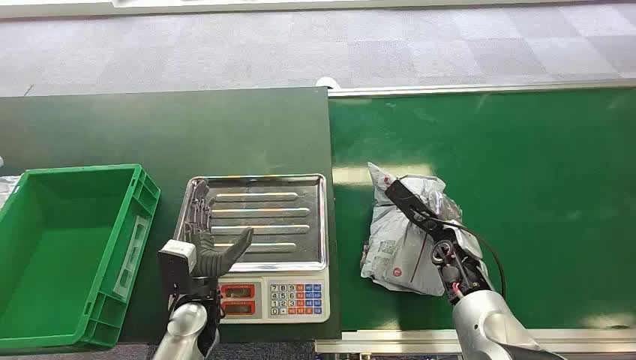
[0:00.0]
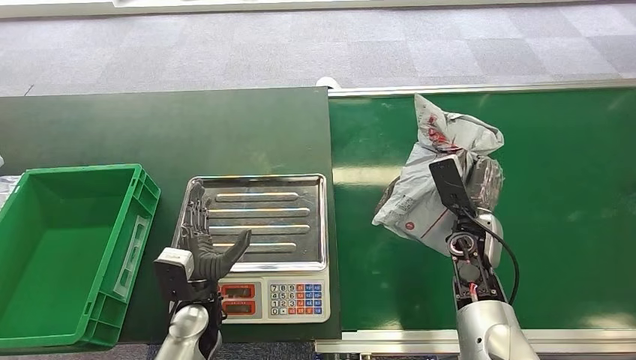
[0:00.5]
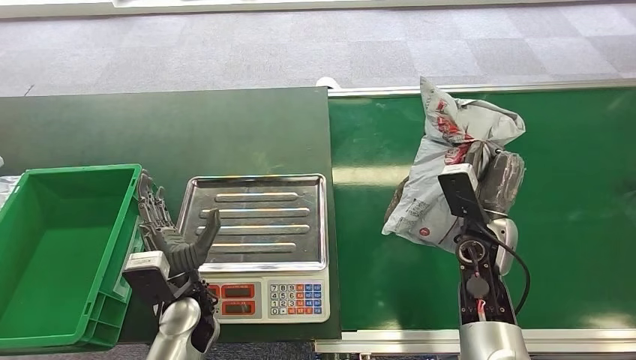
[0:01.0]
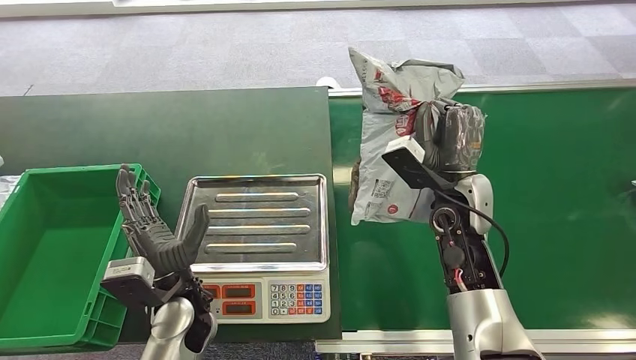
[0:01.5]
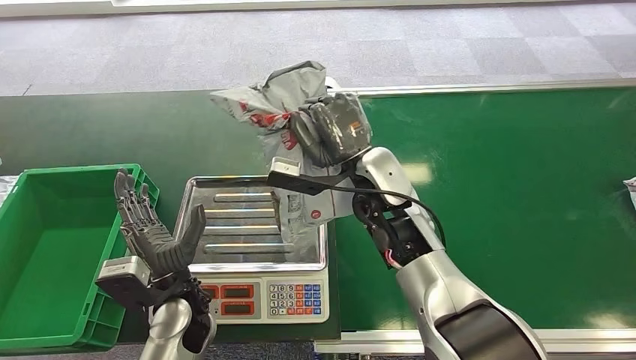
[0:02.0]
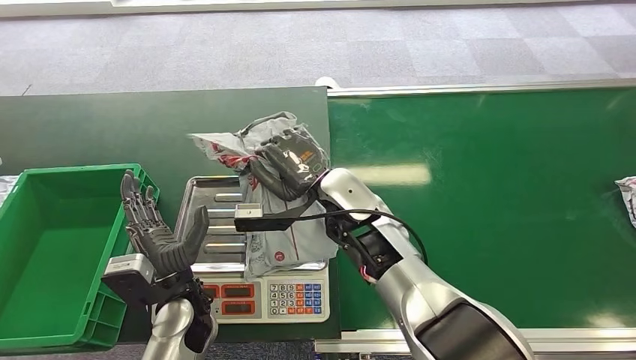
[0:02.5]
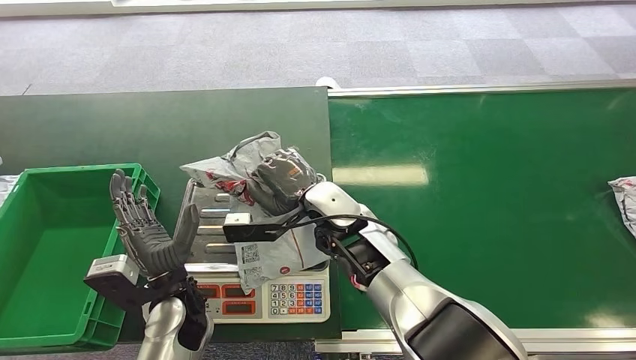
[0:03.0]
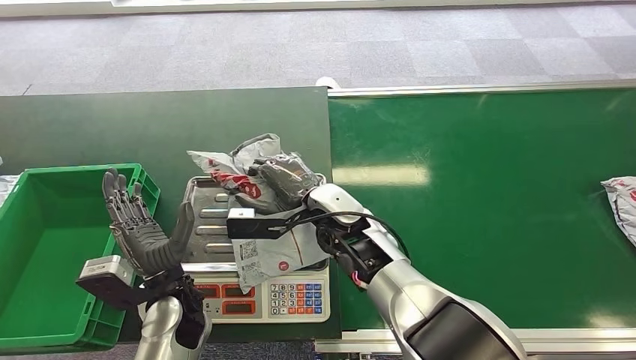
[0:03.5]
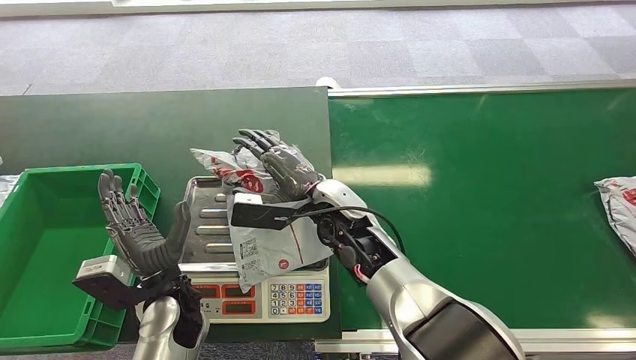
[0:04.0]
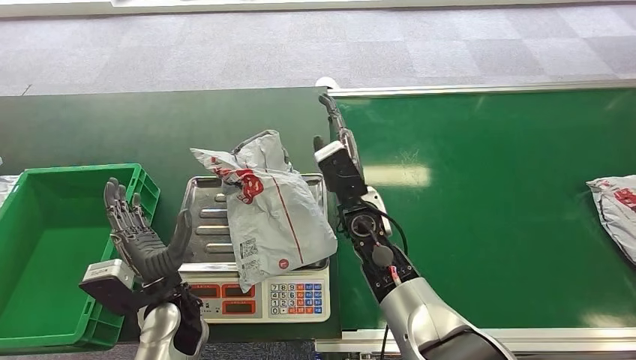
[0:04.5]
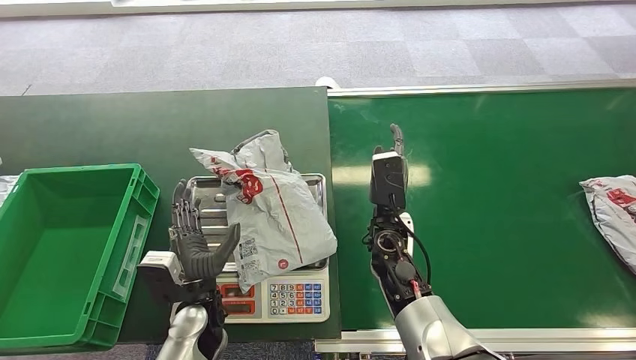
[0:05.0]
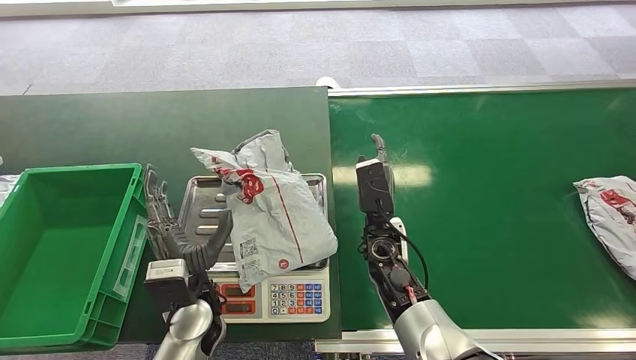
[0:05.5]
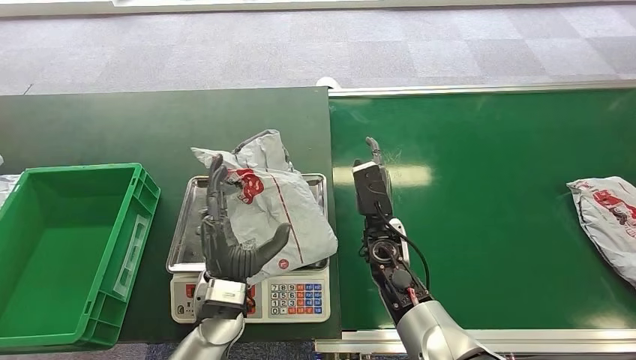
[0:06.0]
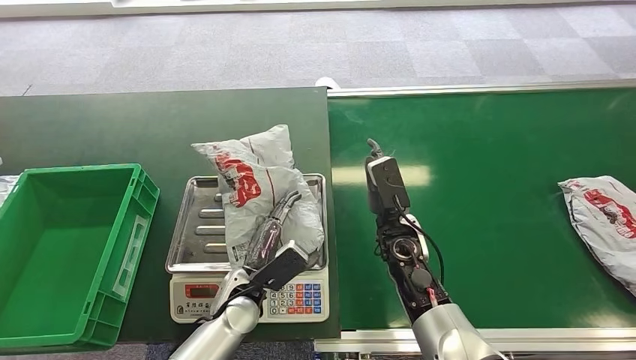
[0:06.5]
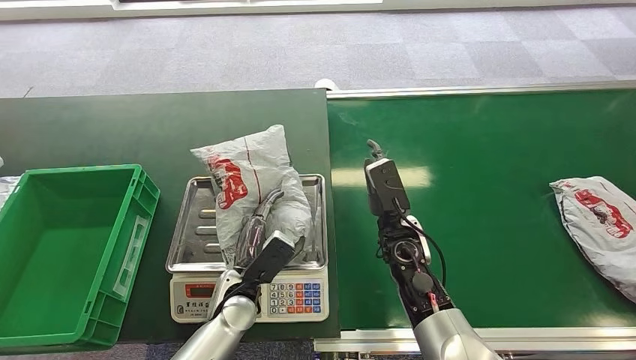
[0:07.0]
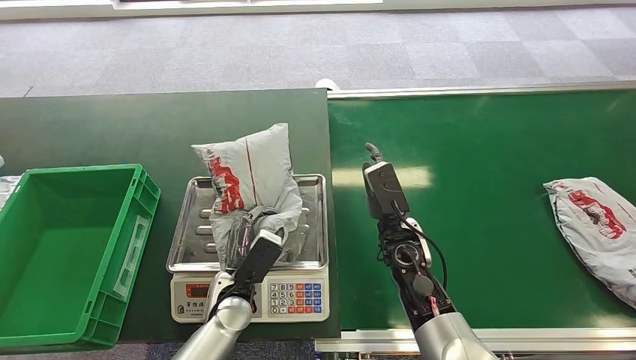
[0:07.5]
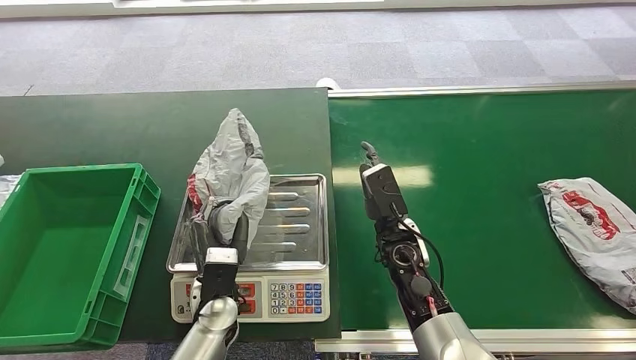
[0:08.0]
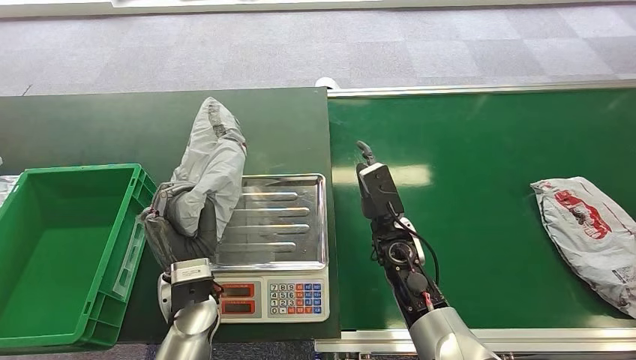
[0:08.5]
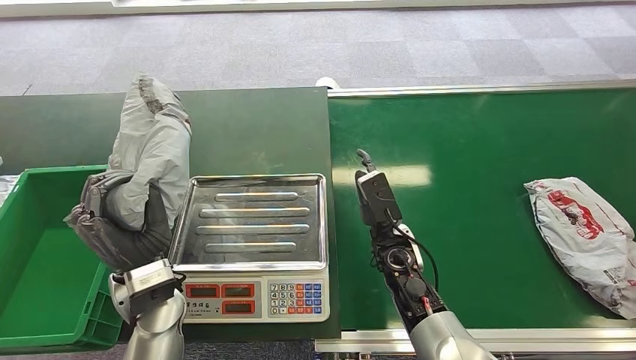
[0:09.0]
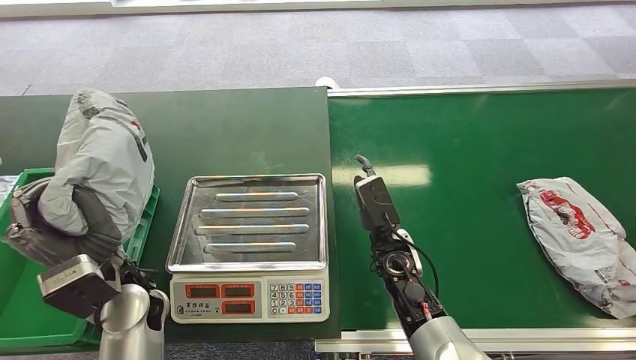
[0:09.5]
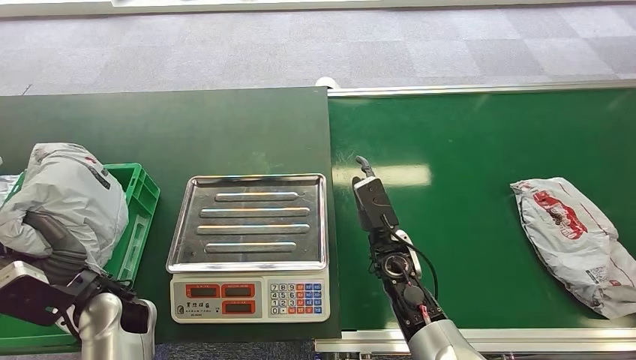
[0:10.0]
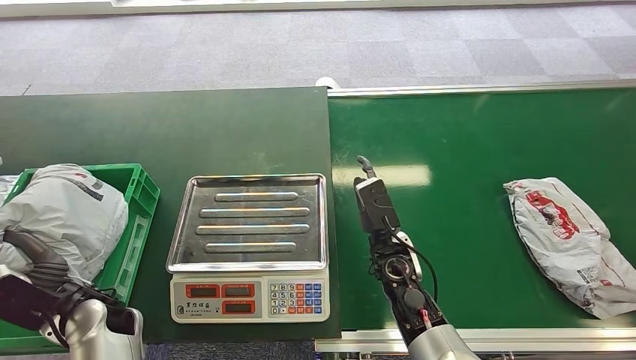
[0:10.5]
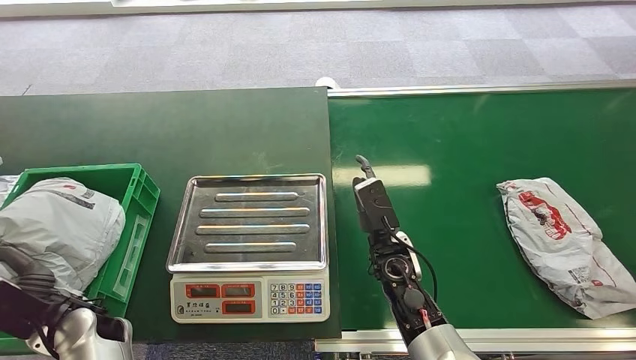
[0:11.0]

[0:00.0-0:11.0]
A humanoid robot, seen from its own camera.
Step, 0:00.0 to 0:01.5: Pick up the package from the conveyor belt.
Step, 0:02.5 to 0:04.0: Place the package onto the inbound machine.
Step, 0:08.5 to 0:09.5: Pick up the package from the inbound machine.
Step, 0:10.0 to 0:11.0: Place the package into the parcel locker.
0:03.5 to 0:05.5: The right hand goes some 10 cm to the right and downward.

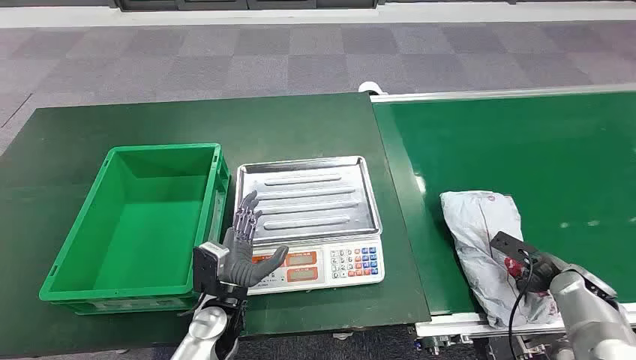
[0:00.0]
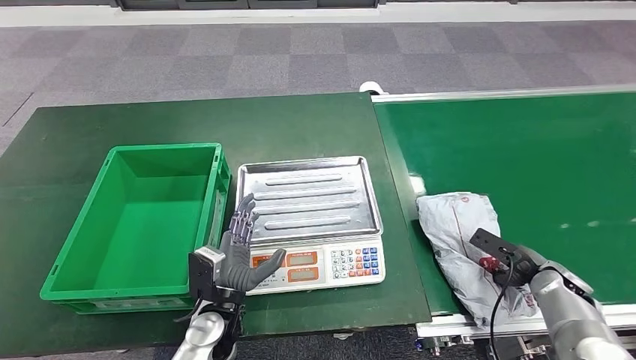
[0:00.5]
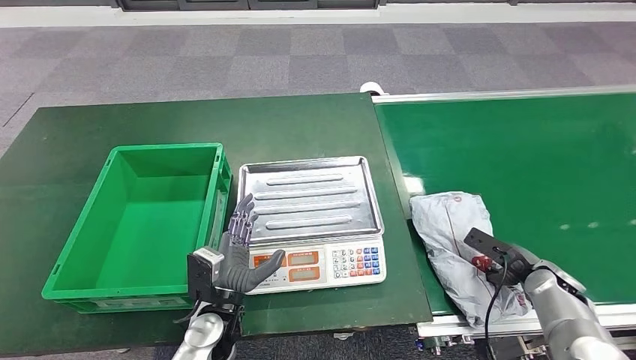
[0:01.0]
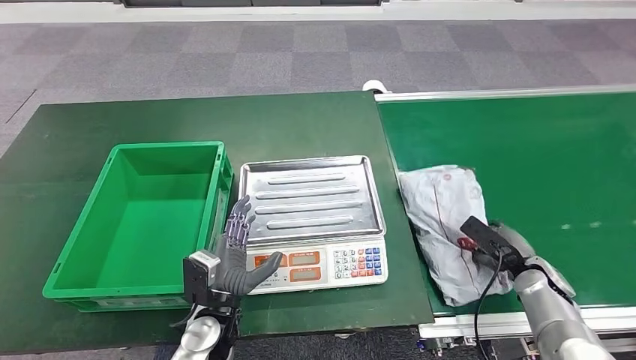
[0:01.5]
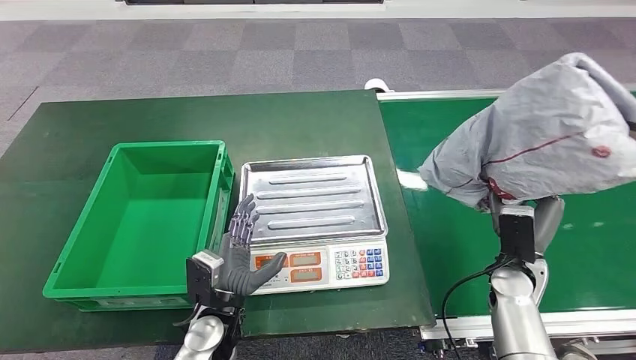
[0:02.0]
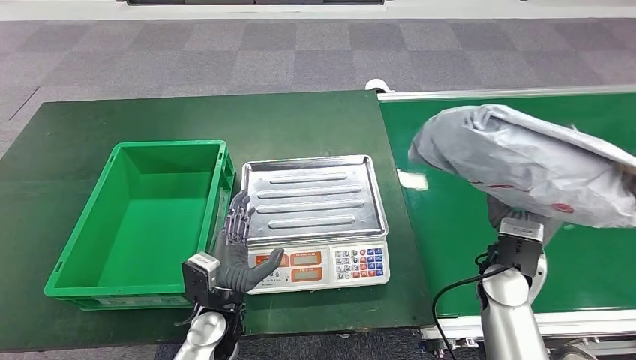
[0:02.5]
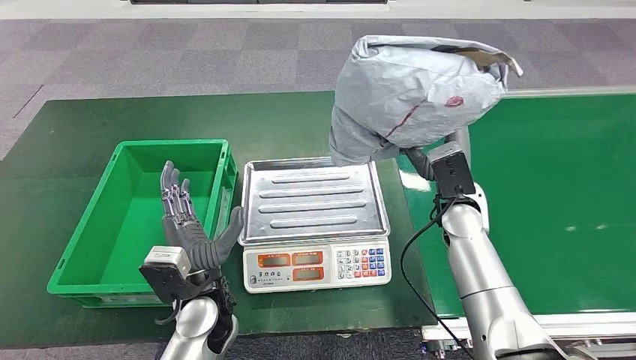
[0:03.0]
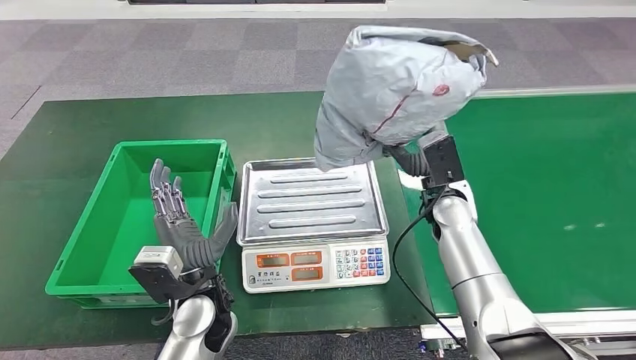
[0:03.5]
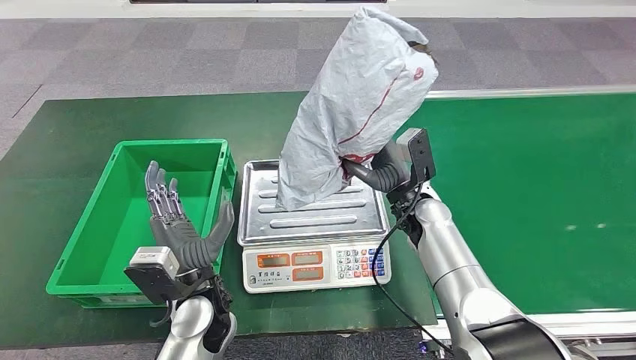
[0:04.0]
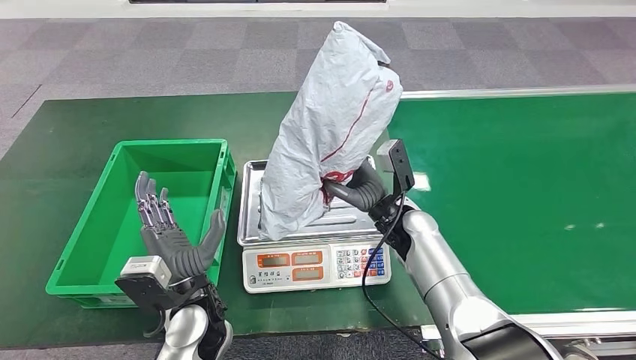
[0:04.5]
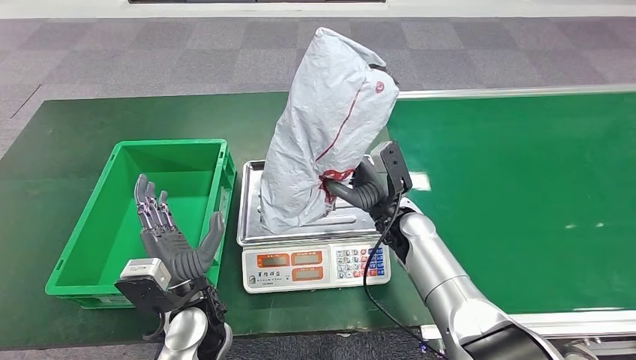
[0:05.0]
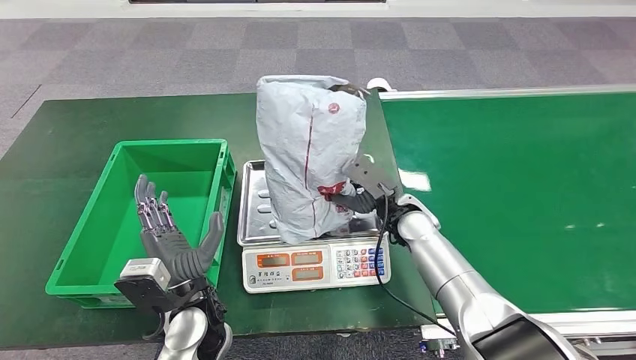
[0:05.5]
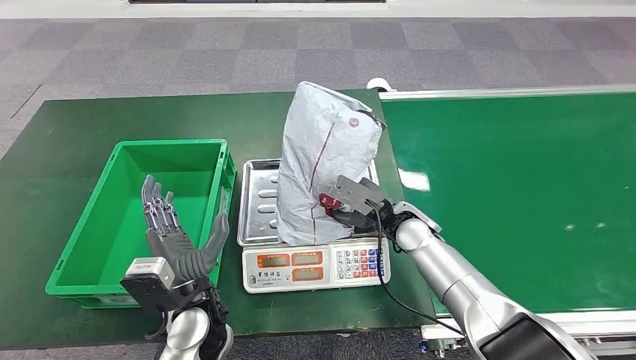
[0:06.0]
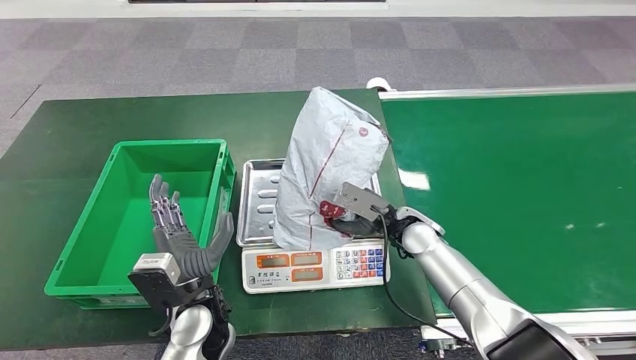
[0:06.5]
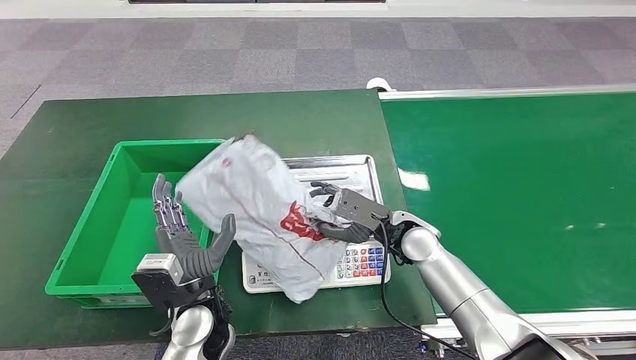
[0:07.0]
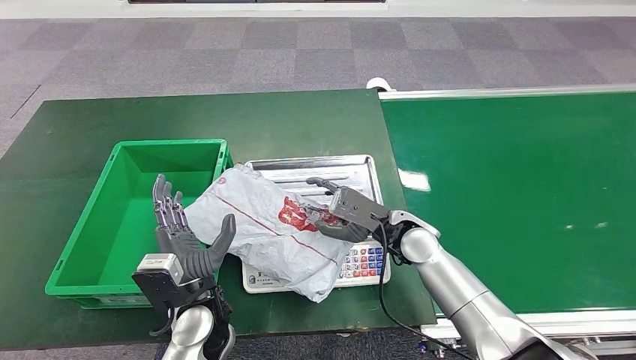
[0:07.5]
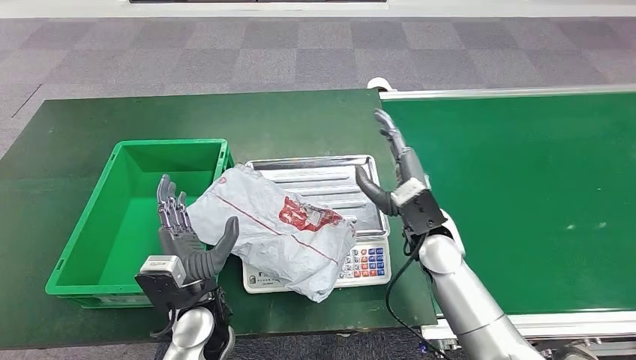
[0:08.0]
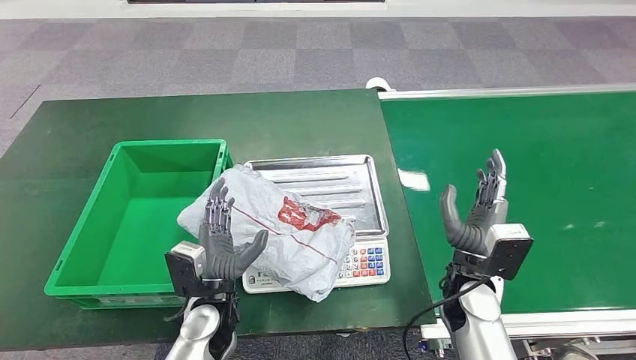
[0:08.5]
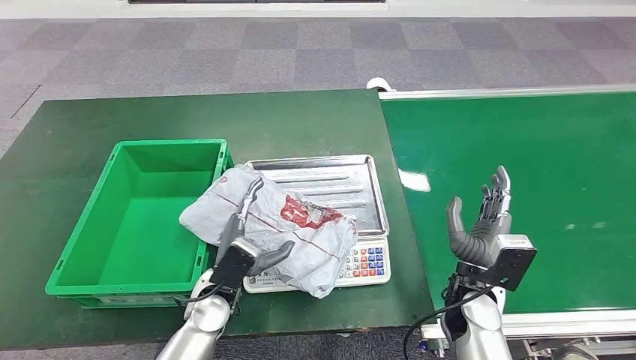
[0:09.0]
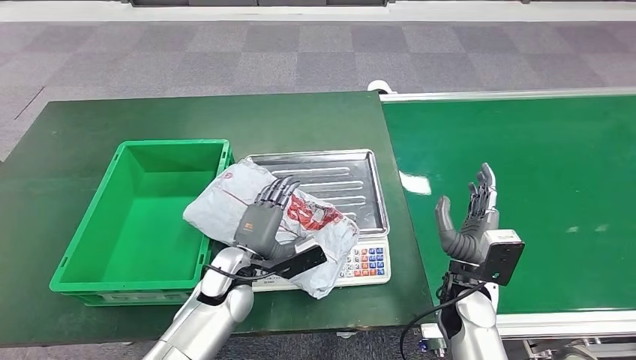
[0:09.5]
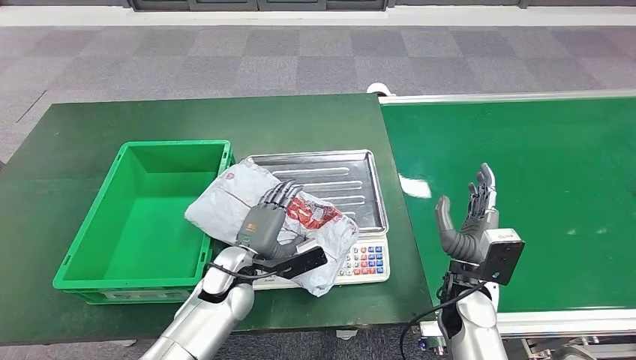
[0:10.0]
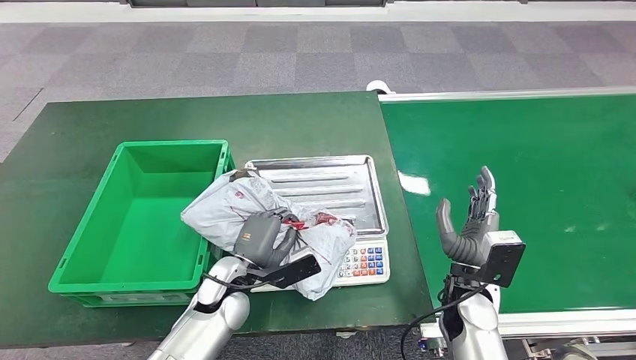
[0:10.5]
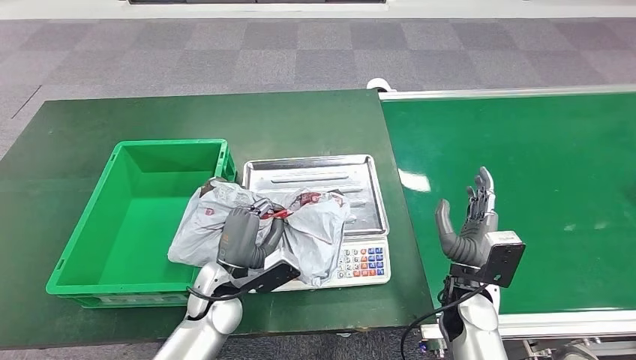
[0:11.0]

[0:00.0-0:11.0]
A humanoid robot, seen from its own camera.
Step, 0:00.0 to 0:01.5: Pick up the package from the conveyor belt.
Step, 0:02.5 to 0:07.5: Place the package onto the inbound machine.
0:05.5 to 0:07.5: The hands stay close to where they were, moving slightly.
0:07.5 to 0:09.0: The right hand moves backward and to the right, approximately 10 cm.
